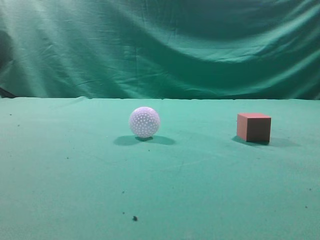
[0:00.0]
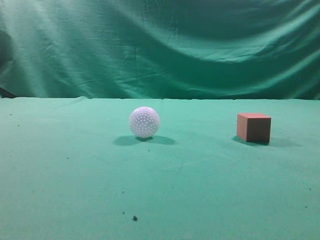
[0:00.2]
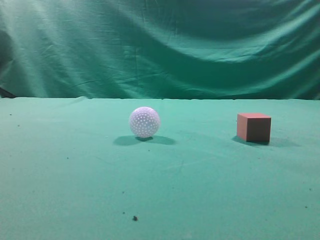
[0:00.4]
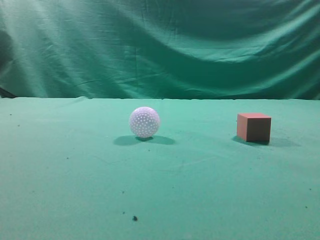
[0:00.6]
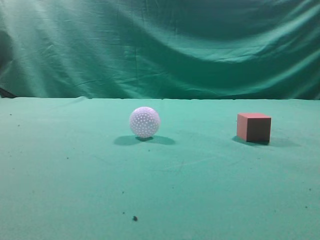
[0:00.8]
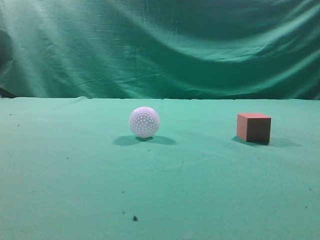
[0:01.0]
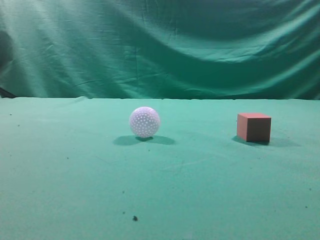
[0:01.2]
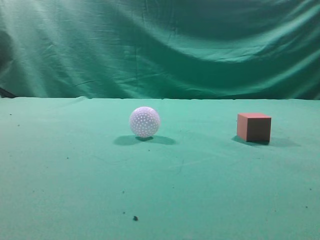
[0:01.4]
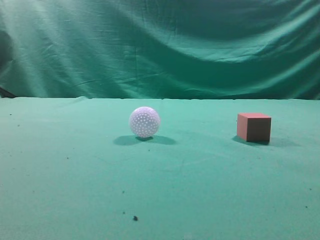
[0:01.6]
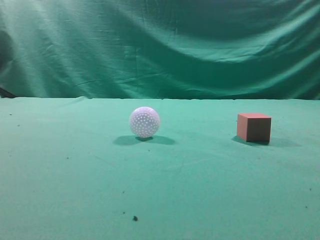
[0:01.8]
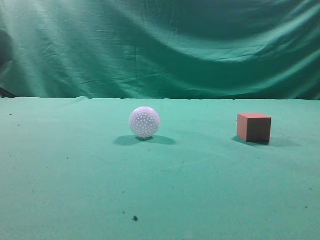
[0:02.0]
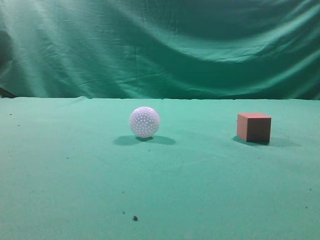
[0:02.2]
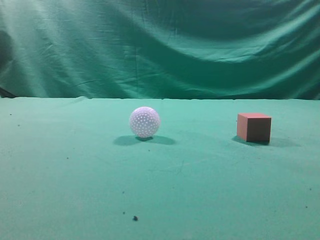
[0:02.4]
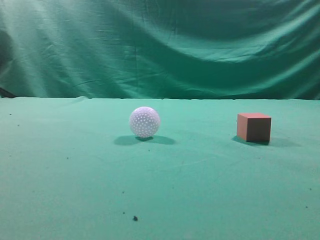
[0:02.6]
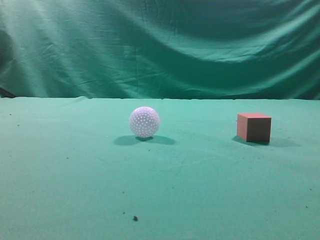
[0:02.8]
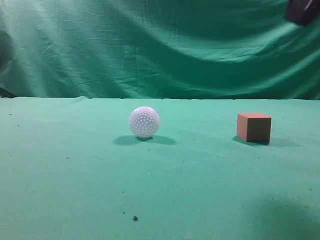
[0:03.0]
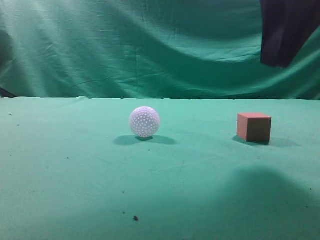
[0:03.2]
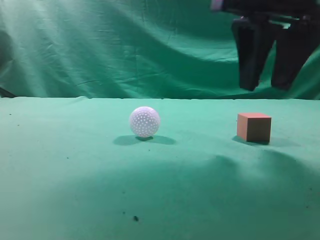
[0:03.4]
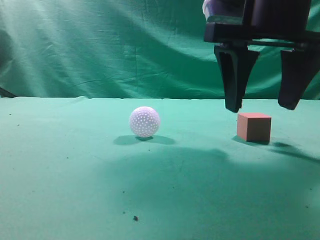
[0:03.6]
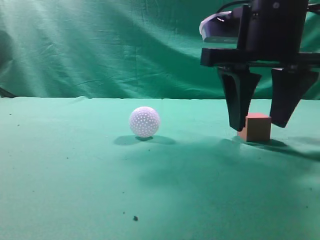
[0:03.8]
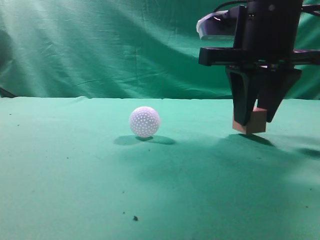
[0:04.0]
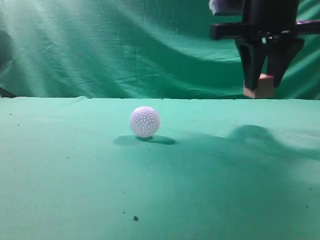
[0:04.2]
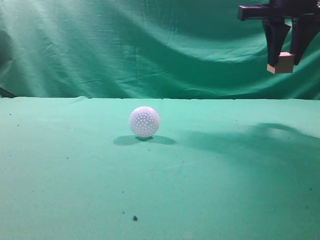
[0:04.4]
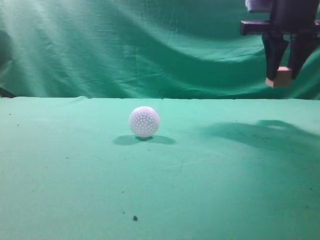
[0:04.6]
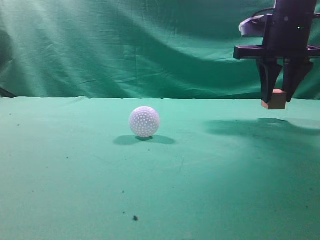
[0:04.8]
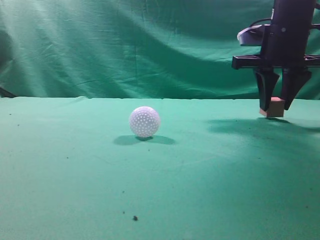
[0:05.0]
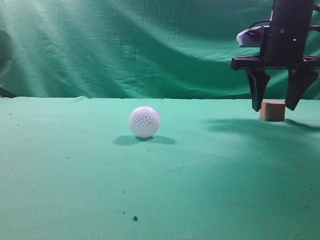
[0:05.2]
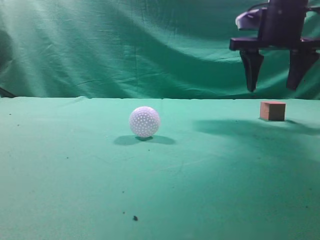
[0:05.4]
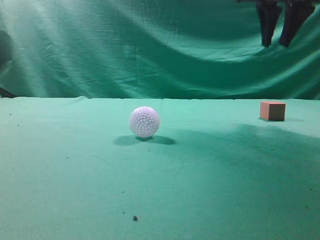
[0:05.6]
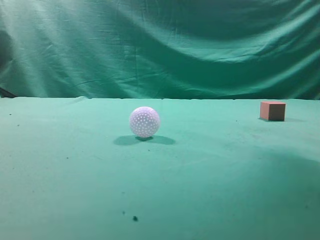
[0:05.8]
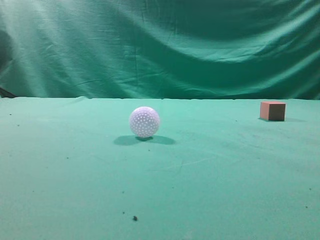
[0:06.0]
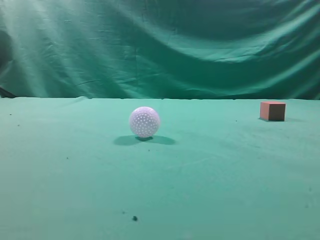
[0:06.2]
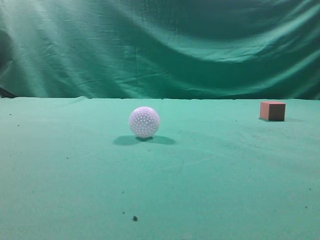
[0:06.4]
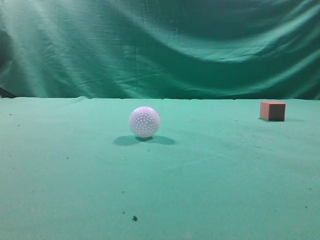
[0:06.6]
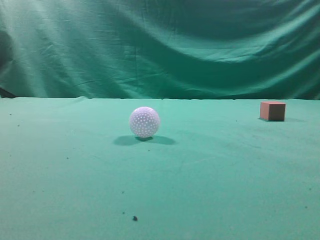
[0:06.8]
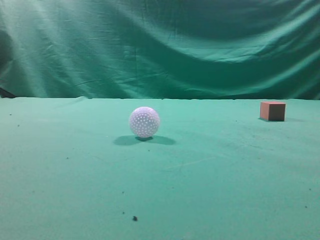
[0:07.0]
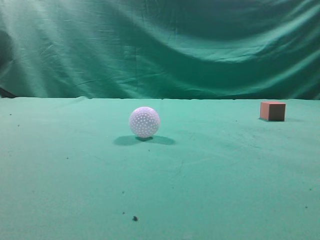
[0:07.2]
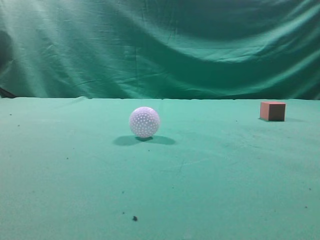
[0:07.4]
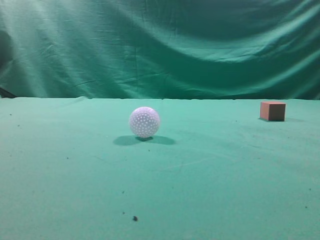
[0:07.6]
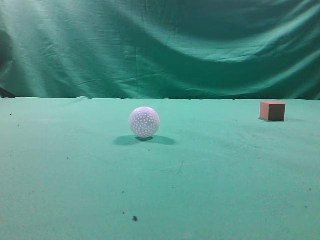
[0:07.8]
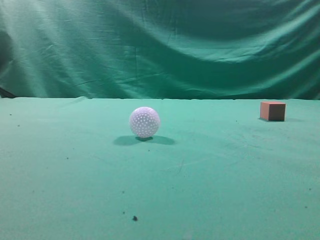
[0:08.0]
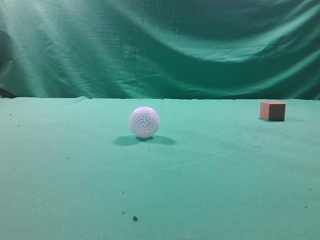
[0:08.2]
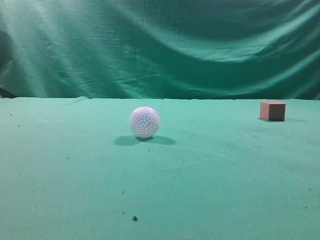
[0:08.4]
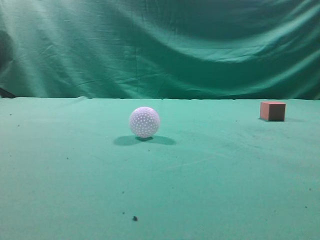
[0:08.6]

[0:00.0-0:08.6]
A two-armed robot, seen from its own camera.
Task of the whole recording: pick up the cube block and place it in another position on the table.
Step, 0:00.0 to 0:04.0: Pick up the small cube.
Step, 0:04.2 to 0:05.2: Place the small cube on the ahead of the table.
0:02.8 to 0:04.4: The right gripper travels forward by about 20 cm, and opens its fingers.
0:04.4 to 0:05.8: The right gripper is displaced upward and backward by about 15 cm, and closes its fingers.
0:05.8 to 0:07.2: The right gripper shifts about 25 cm backward.
